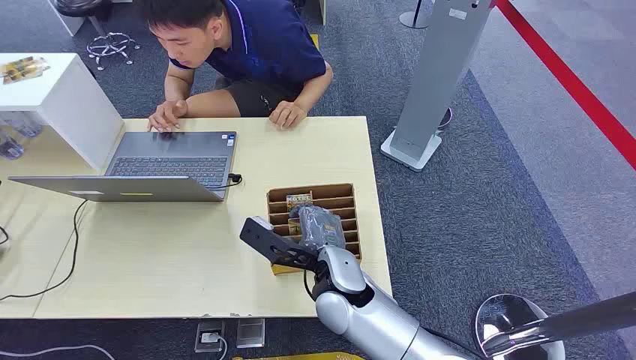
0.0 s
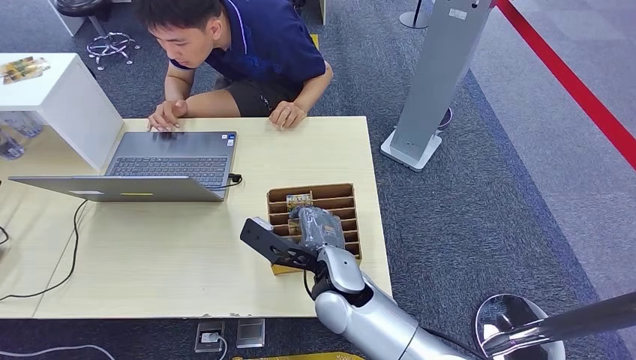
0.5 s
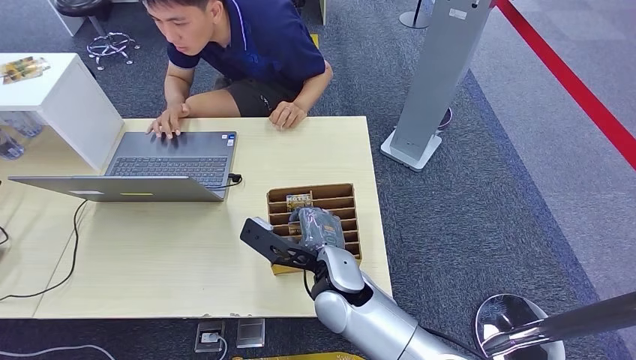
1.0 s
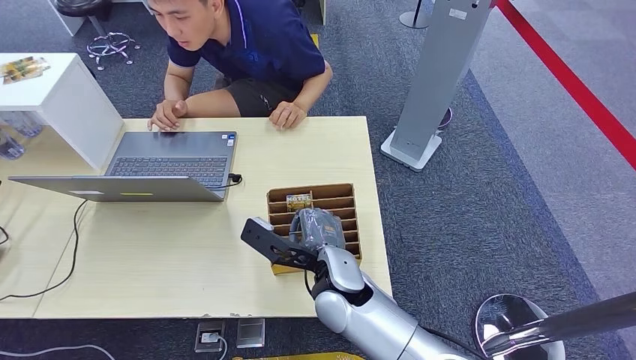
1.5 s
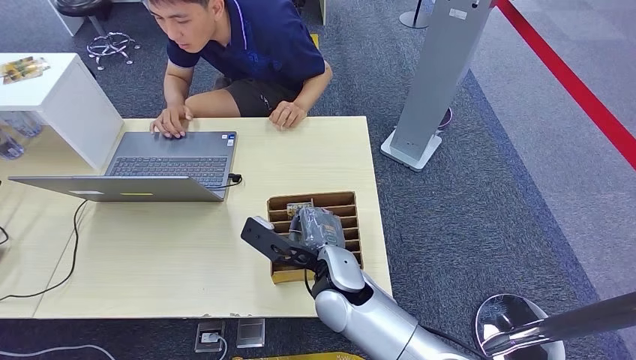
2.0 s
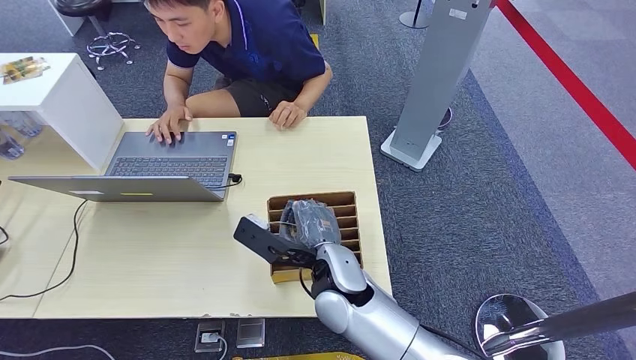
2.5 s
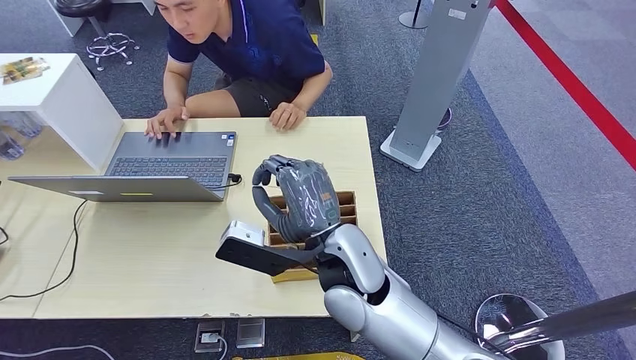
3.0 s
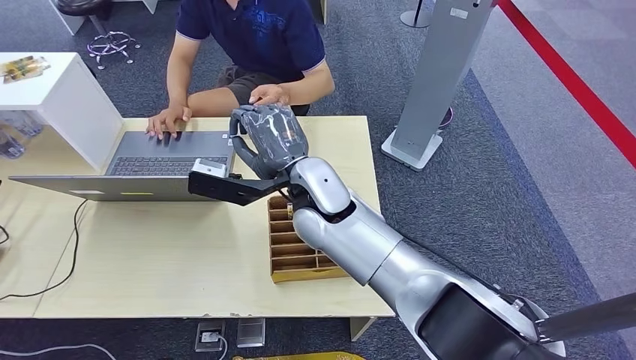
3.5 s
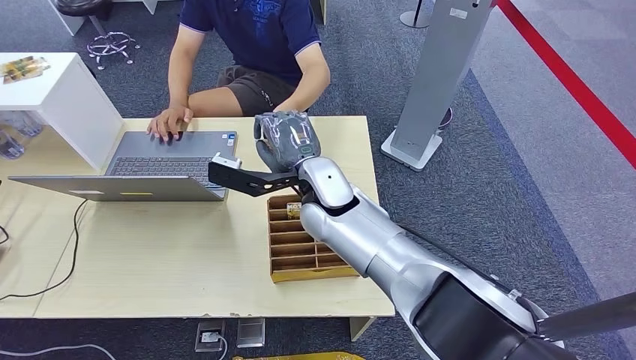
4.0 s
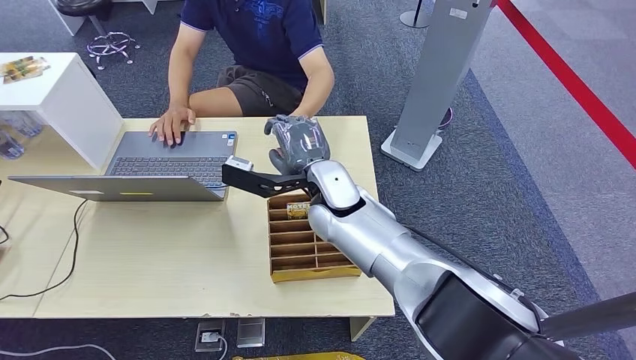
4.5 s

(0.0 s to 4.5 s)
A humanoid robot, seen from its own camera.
Step, 0.0 s - 2.5 s: Pick up the room card from the card holder.
Step, 3.0 s - 4.5 s: Hand the room card to the target.
2.0 s - 4.5 s: The right hand is displaced forward and upward by approximately 15 cm.
